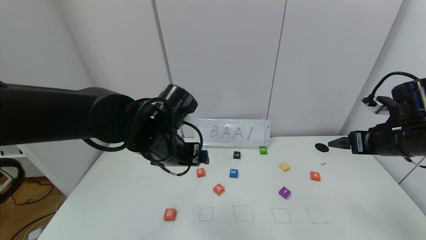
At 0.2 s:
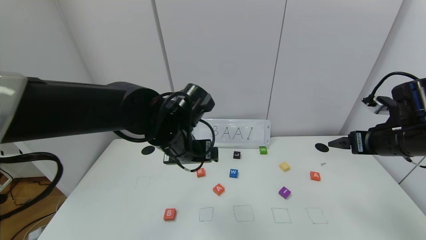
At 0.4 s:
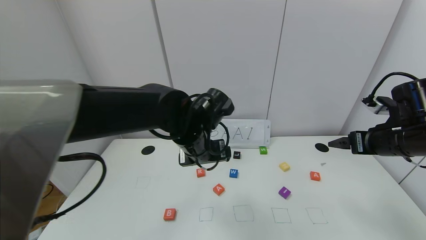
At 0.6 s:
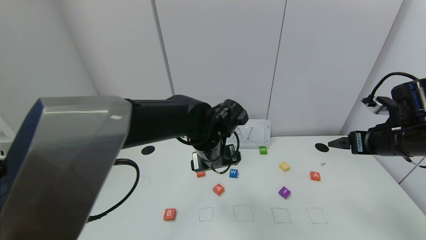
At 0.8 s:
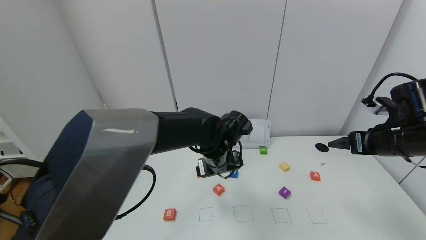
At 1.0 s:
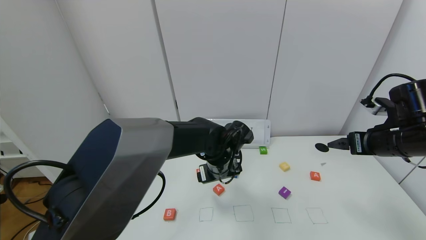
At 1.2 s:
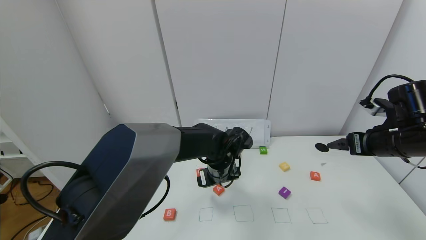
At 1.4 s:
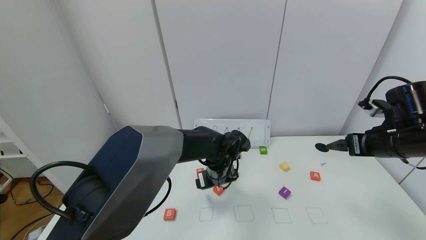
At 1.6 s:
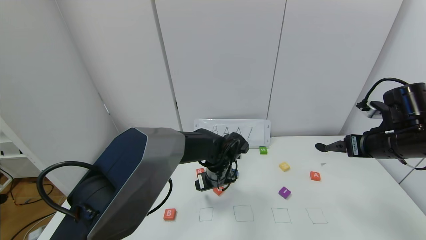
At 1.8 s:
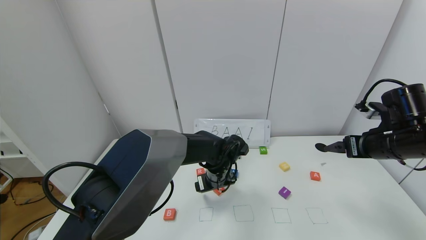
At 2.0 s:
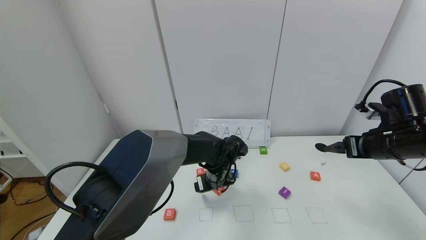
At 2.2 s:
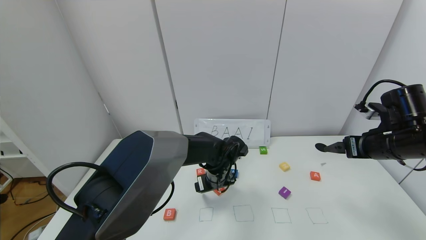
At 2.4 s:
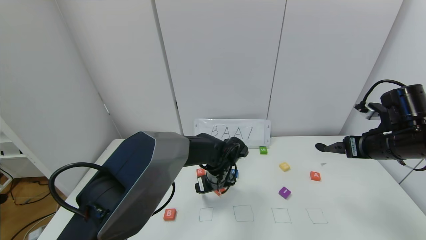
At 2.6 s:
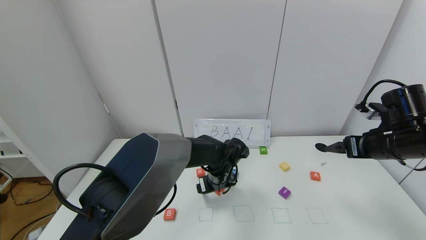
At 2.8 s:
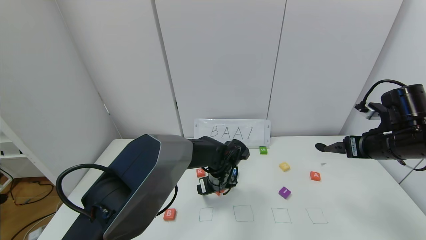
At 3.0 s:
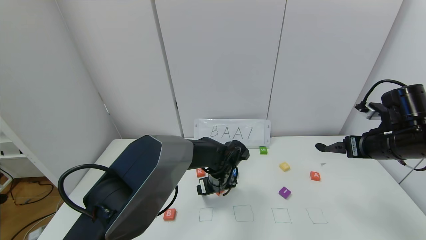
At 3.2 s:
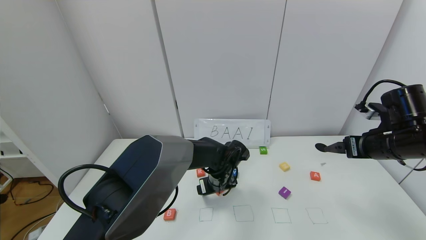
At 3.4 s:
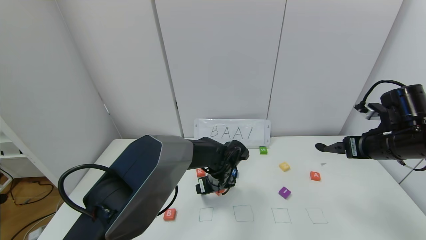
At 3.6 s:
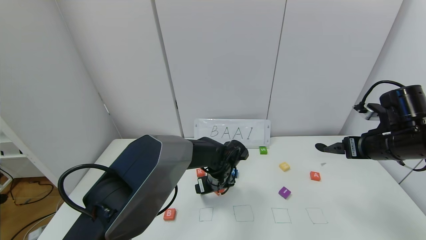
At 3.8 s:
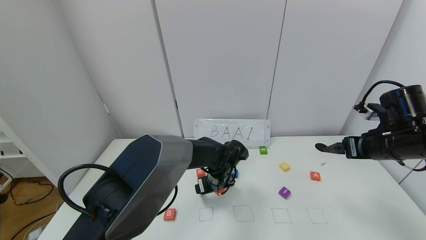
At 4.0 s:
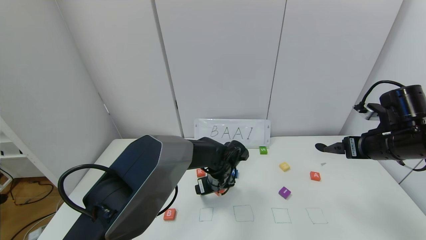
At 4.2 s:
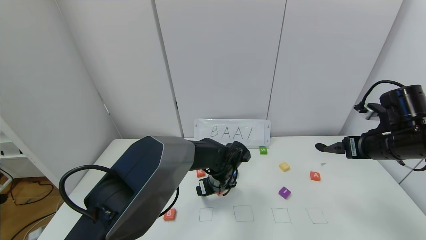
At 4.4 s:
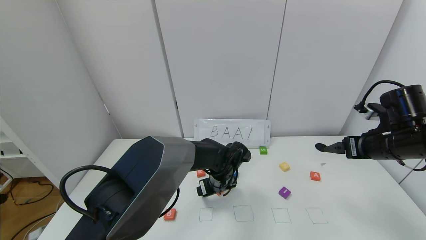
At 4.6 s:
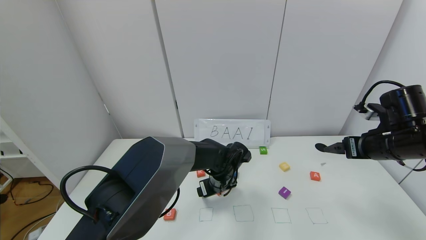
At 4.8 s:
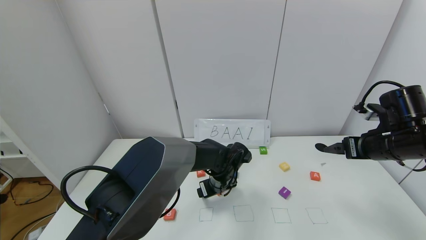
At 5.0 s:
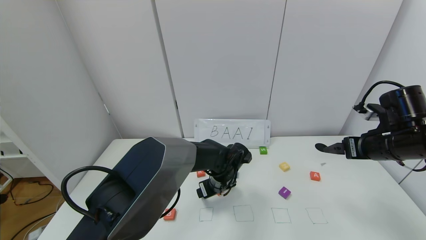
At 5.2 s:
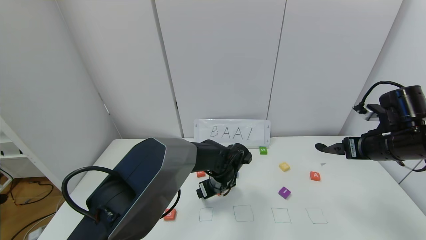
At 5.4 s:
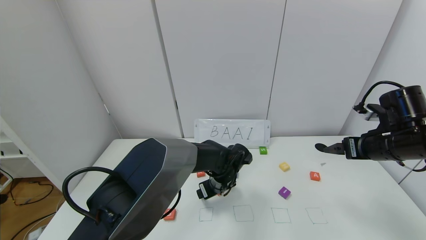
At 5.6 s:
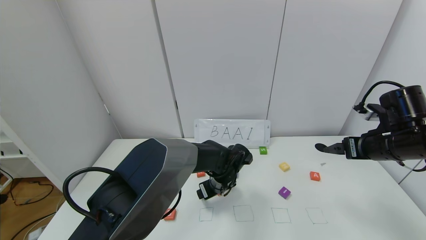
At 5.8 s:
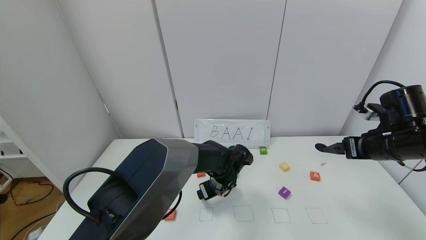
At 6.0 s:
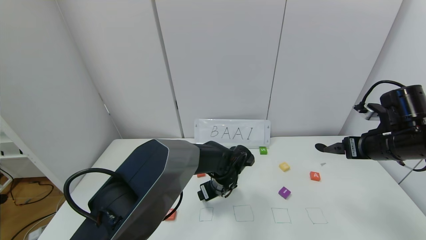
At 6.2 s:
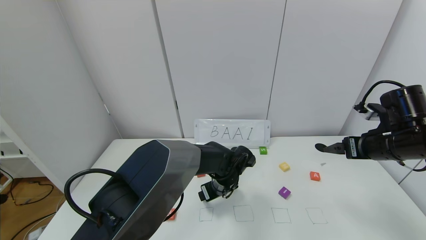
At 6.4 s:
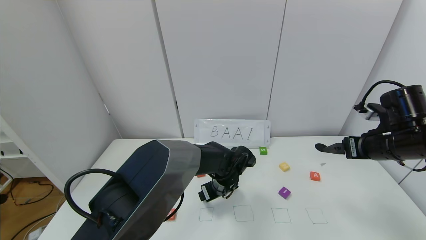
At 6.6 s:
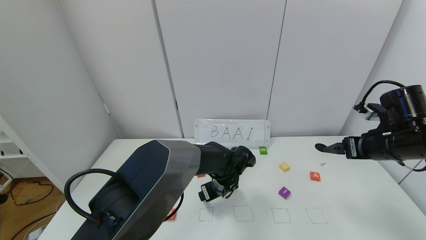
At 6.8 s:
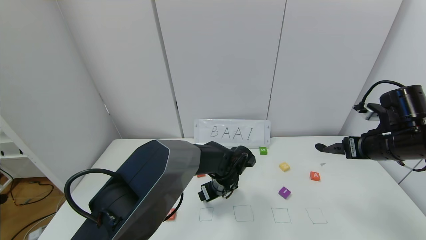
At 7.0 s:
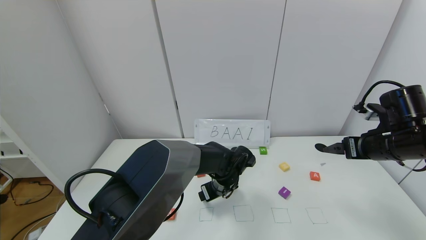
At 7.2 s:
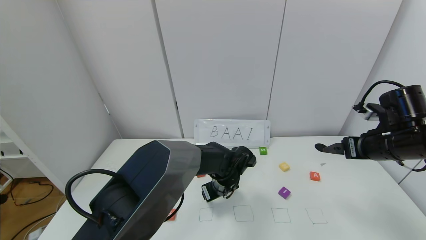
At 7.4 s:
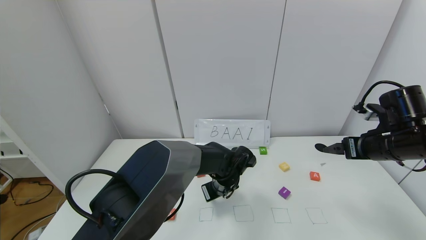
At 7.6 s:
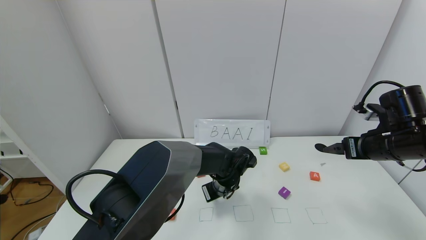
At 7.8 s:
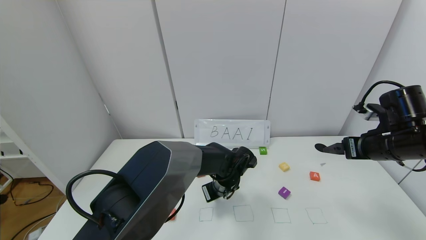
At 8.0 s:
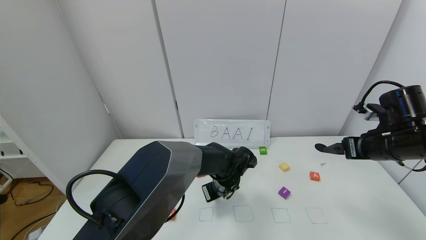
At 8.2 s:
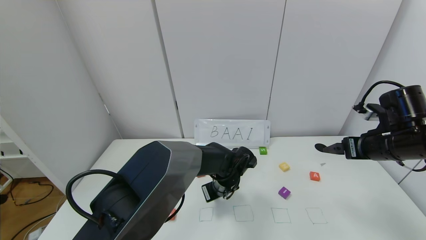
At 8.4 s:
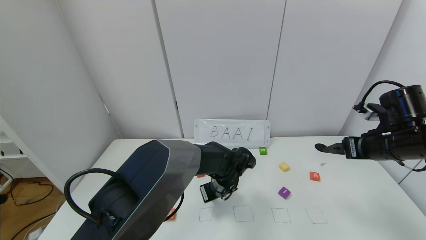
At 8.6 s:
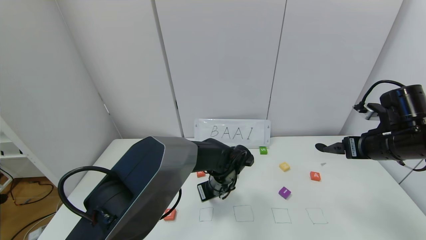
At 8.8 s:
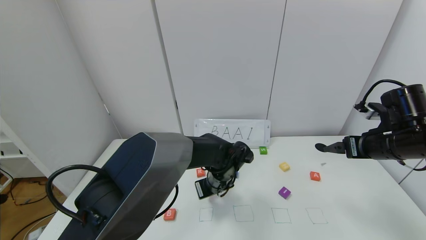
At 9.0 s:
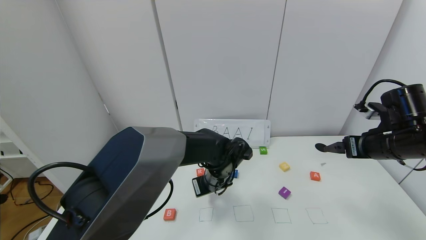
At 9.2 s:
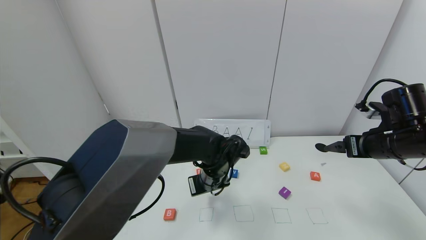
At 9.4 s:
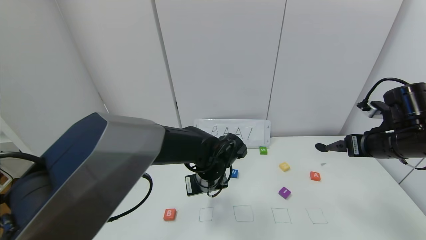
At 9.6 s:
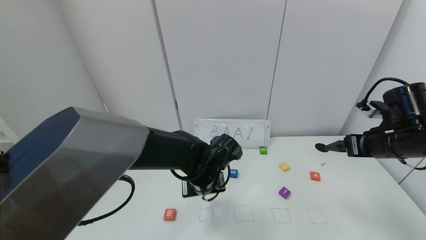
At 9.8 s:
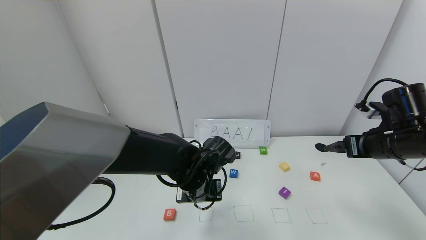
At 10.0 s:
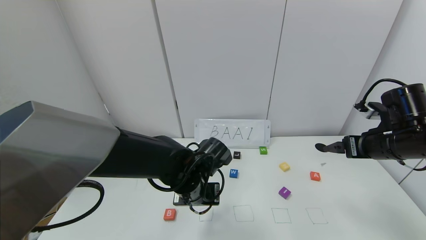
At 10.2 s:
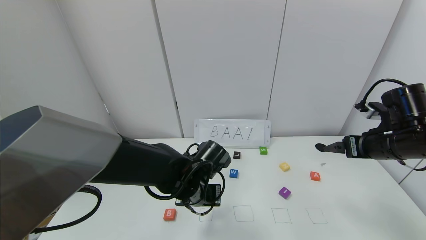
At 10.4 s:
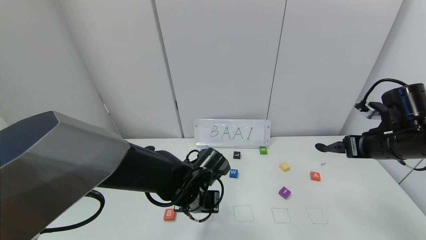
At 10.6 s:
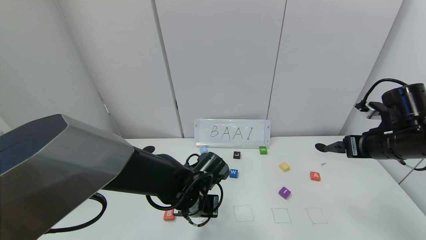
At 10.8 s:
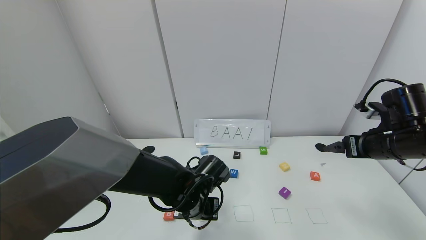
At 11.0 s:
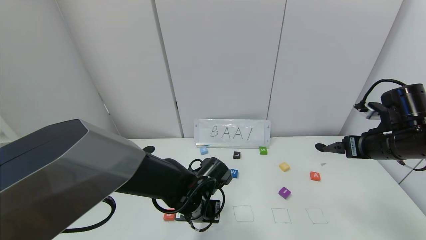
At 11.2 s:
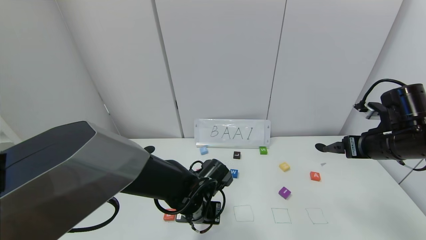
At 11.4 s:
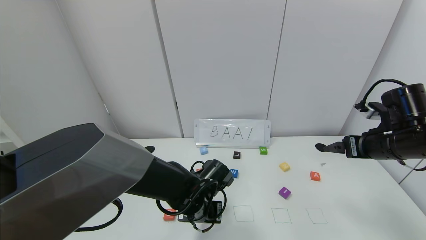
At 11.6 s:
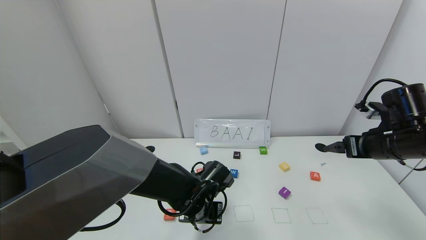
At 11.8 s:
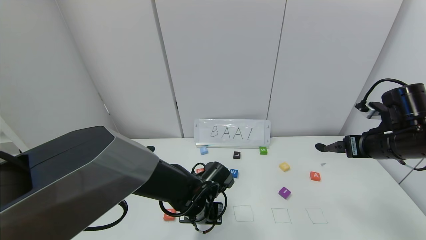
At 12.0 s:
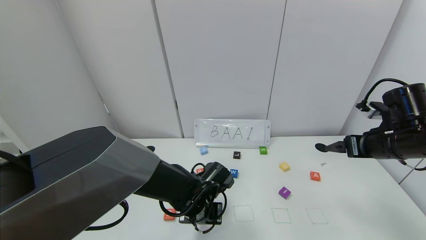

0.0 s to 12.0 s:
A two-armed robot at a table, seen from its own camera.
Task of the whole recording: use the gripper to find blocks with the letters b, a, a, and i on the table and arrange them into BAAI, then find r and N and turn the arranged baai into brian.
0.0 to 1.6 s: The left gripper goes approximately 20 cm downward, to the right and forward.
1.6 to 3.0 s: The grippers move only a little.
3.0 to 4.4 s: Both grippers stay about where they are.
4.4 to 6.0 s: The grippers make only small movements.
6.0 to 7.6 s: The left gripper closes.
7.6 to 9.0 s: The left gripper heads upward, covering roughly 5 cm.
9.0 to 10.4 s: The left gripper heads backward and to the left, covering about 10 cm.
10.4 to 12.0 s: There are only small adjustments of the grippers.

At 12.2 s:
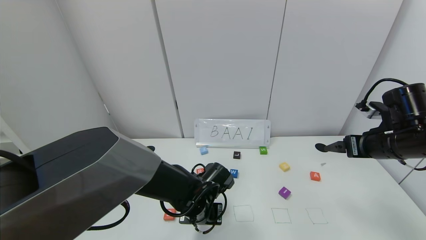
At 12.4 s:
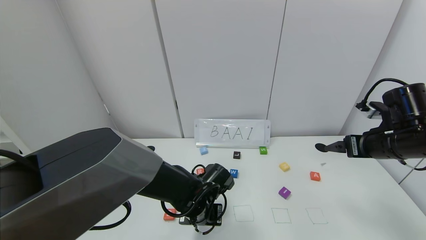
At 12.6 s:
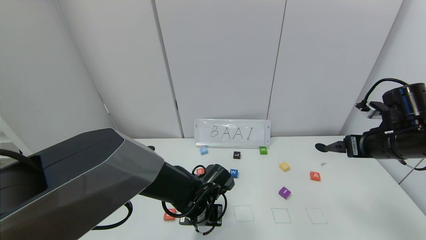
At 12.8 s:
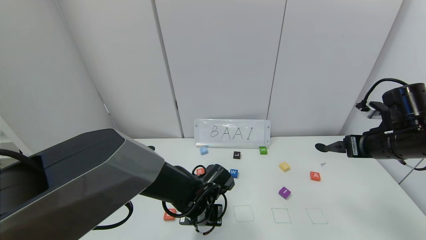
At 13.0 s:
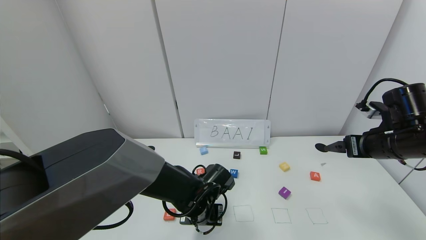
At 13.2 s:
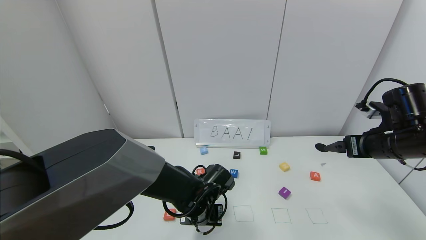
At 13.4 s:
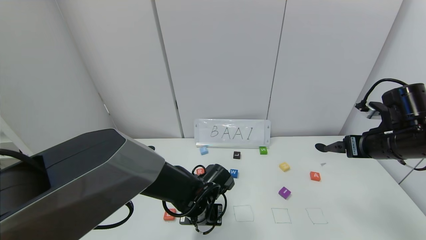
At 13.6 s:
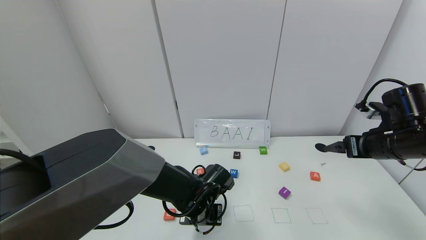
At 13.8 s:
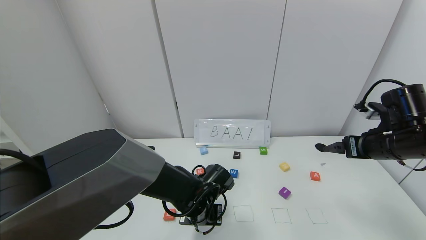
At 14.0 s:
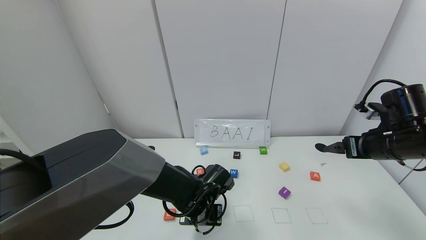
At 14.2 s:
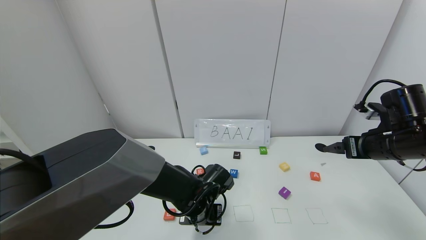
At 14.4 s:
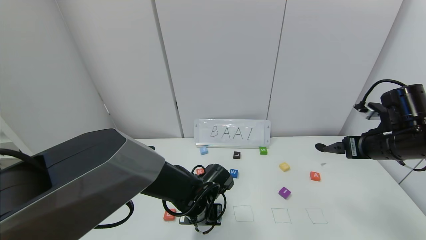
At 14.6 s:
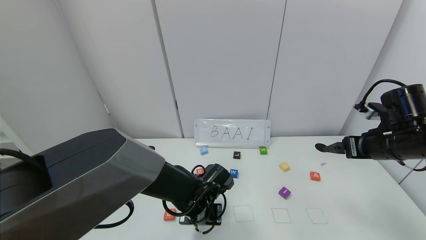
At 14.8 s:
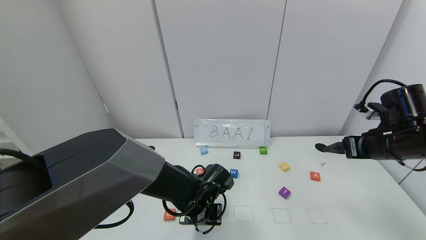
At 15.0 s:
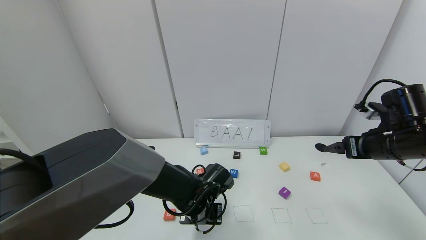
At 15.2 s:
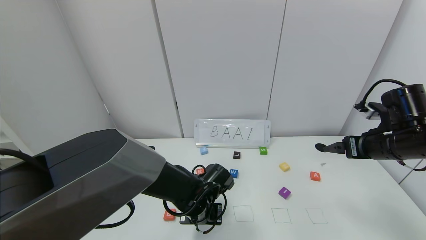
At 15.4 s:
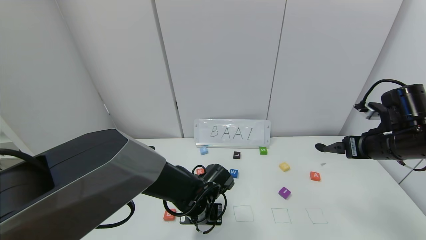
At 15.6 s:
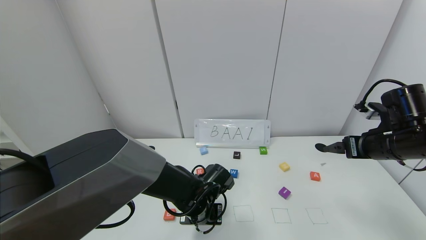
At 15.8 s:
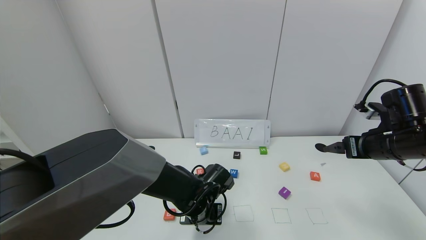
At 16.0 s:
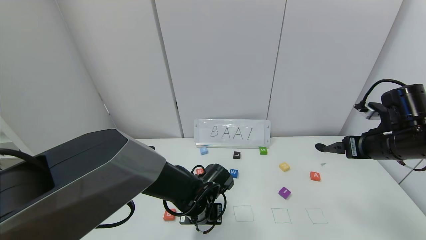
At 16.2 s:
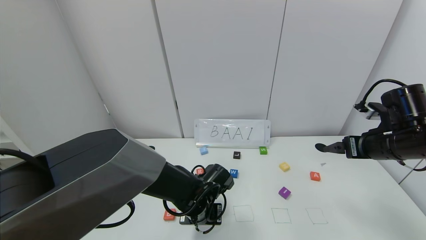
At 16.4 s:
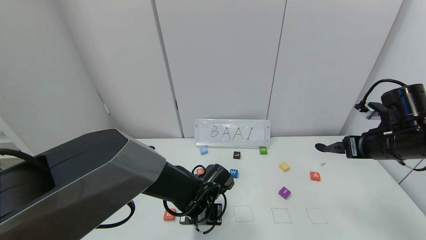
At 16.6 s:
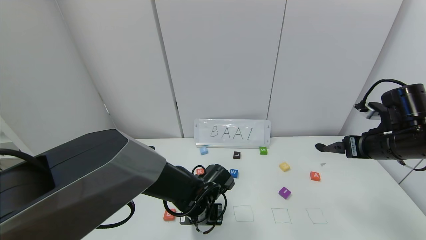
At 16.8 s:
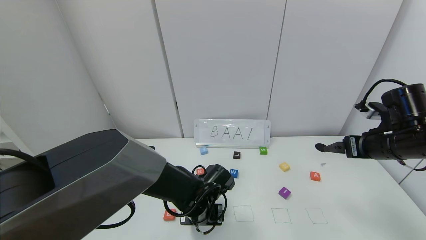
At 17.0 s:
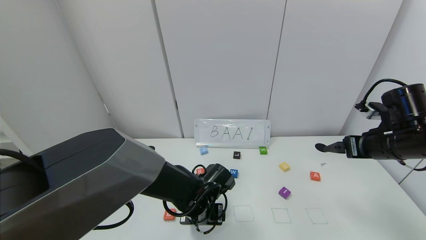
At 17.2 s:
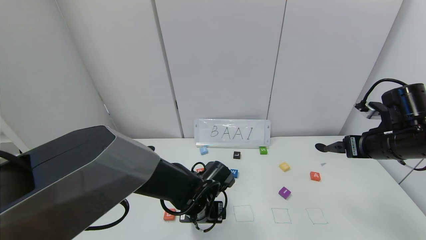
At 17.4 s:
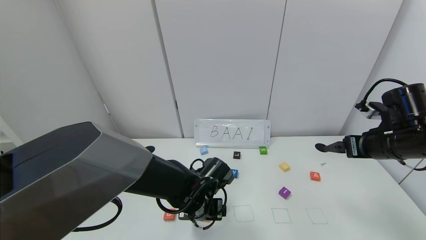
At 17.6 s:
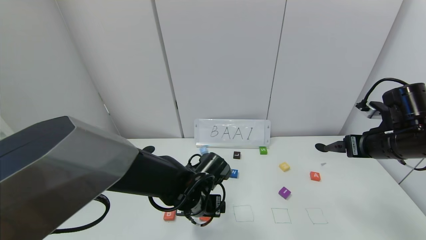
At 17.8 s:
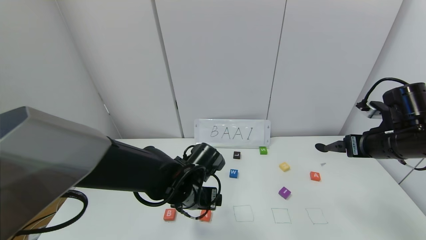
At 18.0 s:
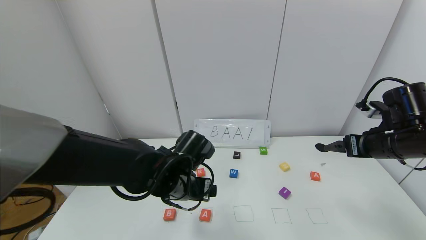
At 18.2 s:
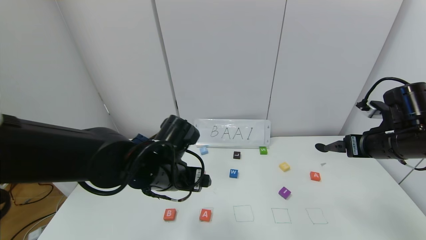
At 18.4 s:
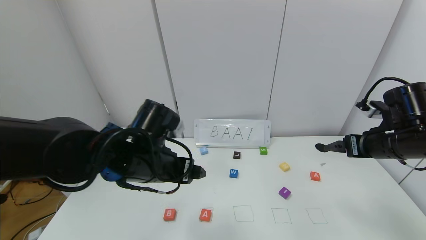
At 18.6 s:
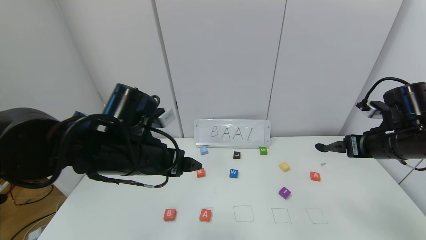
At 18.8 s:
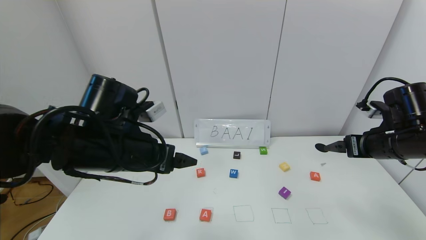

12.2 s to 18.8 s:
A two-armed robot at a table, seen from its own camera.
Task of the whole recording: use the gripper to find blocks with the letters b, a, a, and i on the table and arrange them into BAAI, then find r and N and turn the arranged baai into brian.
Step, 12.2 to 17.4 s: Place the first block A in the second location.
12.2 to 15.4 s: Both grippers stay about where they are.
15.4 to 17.2 s: The left gripper opens up.
17.2 to 18.8 s: The left gripper moves upward and to the left, some 20 cm.
